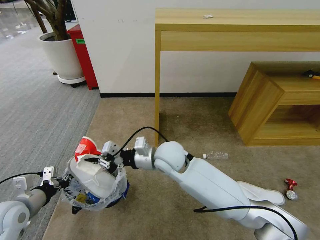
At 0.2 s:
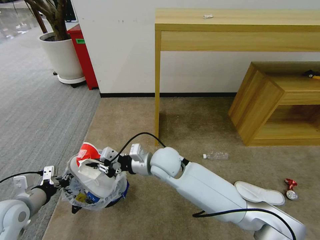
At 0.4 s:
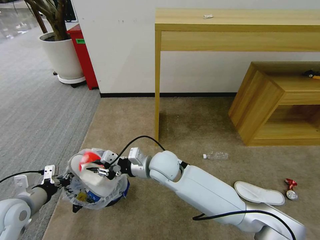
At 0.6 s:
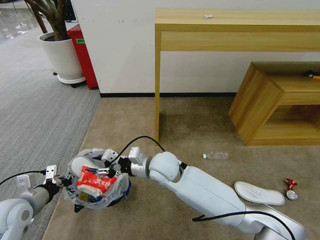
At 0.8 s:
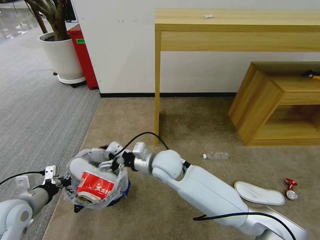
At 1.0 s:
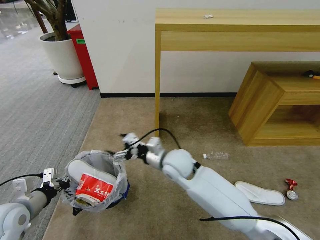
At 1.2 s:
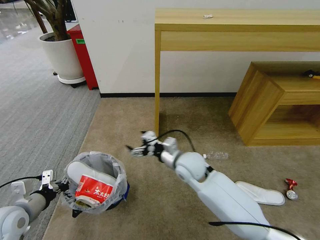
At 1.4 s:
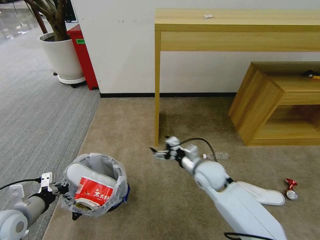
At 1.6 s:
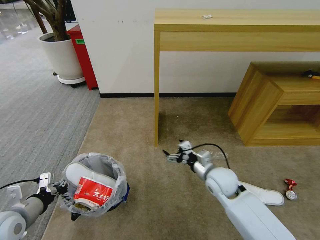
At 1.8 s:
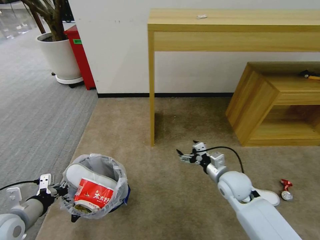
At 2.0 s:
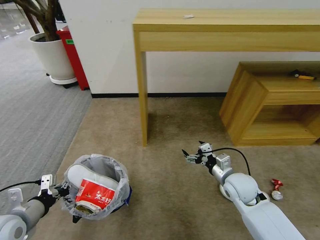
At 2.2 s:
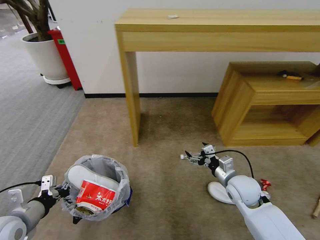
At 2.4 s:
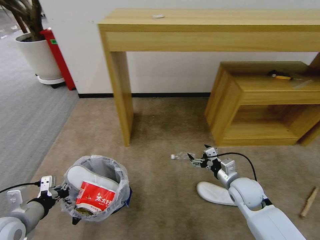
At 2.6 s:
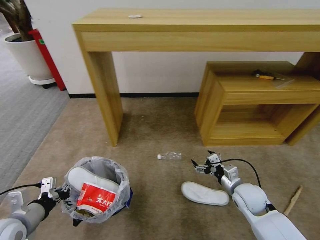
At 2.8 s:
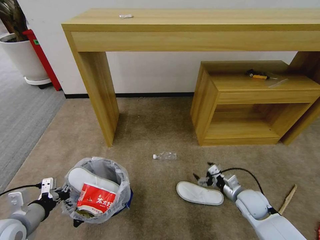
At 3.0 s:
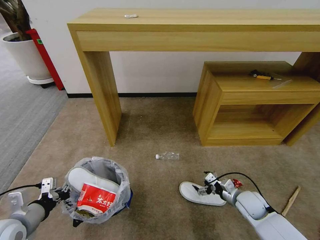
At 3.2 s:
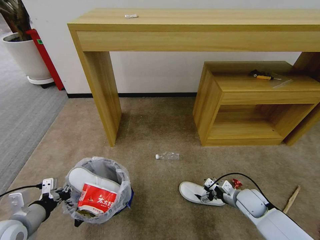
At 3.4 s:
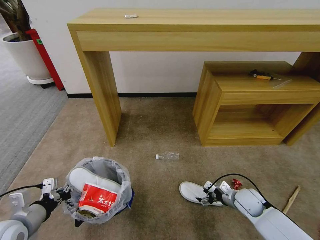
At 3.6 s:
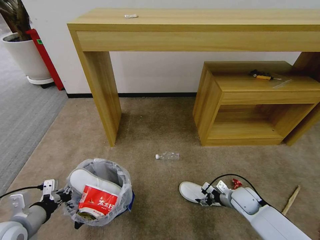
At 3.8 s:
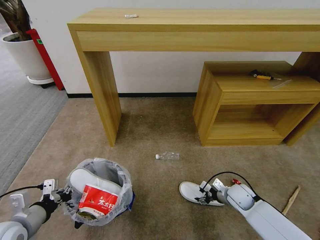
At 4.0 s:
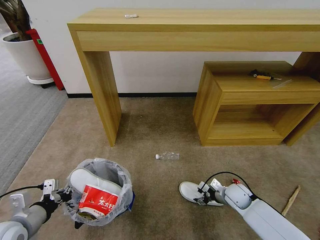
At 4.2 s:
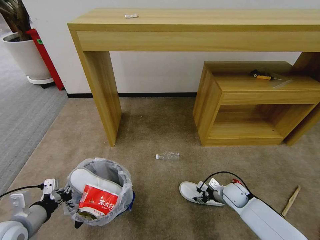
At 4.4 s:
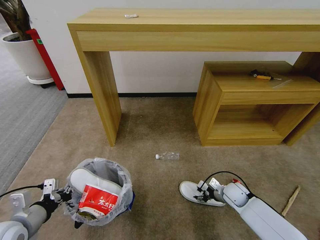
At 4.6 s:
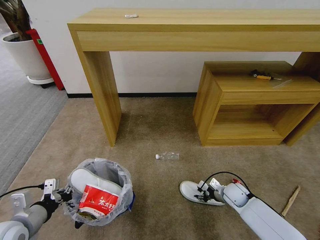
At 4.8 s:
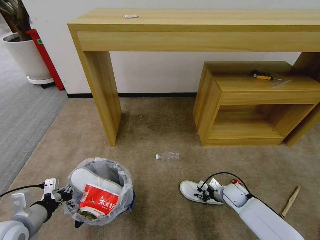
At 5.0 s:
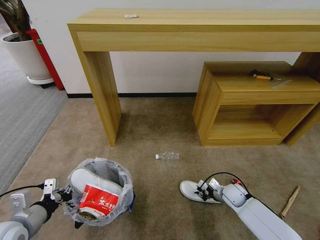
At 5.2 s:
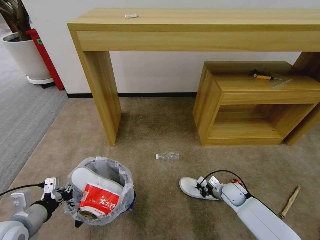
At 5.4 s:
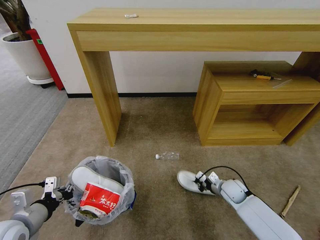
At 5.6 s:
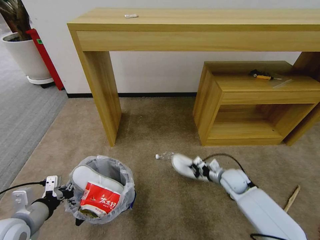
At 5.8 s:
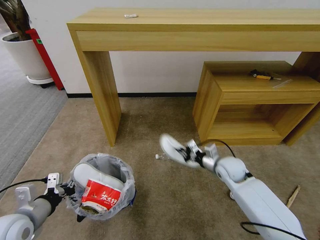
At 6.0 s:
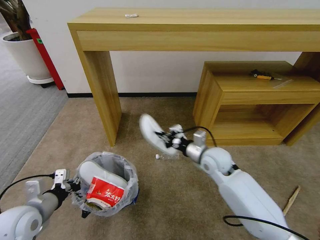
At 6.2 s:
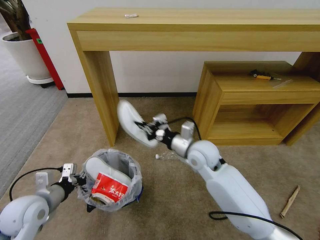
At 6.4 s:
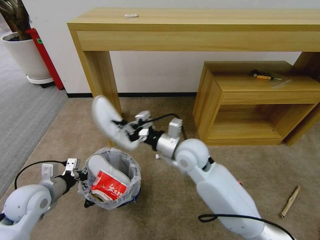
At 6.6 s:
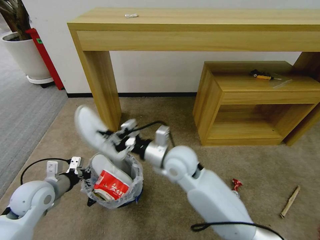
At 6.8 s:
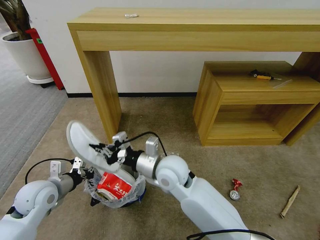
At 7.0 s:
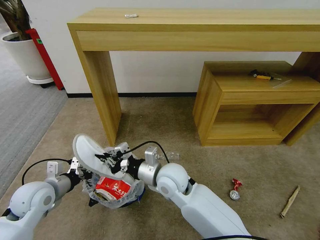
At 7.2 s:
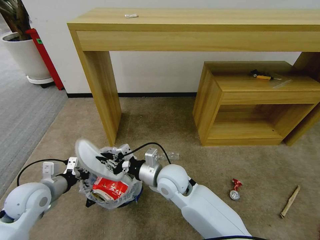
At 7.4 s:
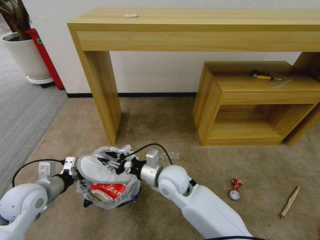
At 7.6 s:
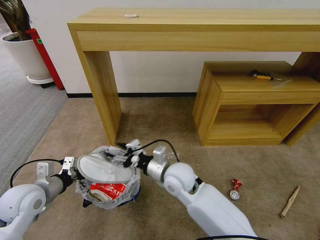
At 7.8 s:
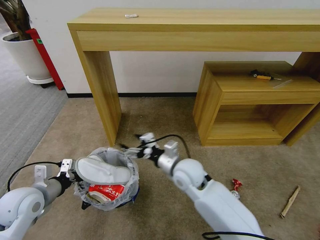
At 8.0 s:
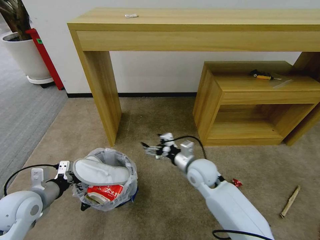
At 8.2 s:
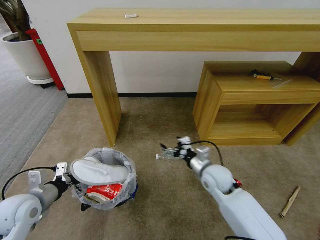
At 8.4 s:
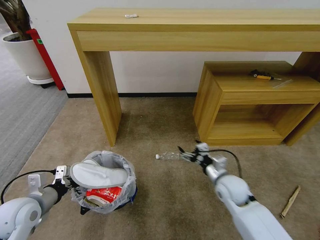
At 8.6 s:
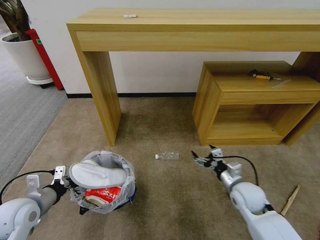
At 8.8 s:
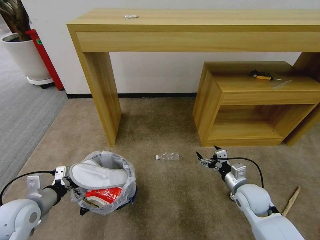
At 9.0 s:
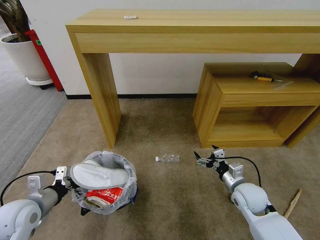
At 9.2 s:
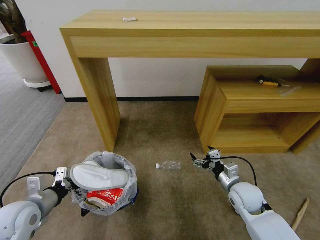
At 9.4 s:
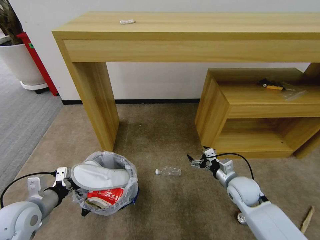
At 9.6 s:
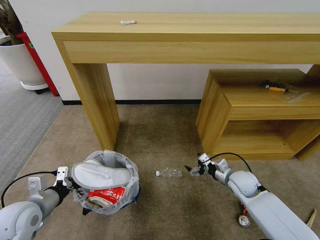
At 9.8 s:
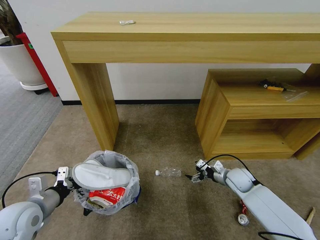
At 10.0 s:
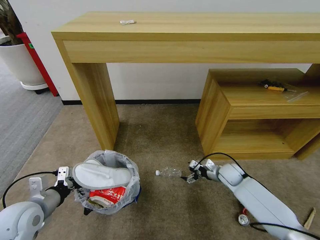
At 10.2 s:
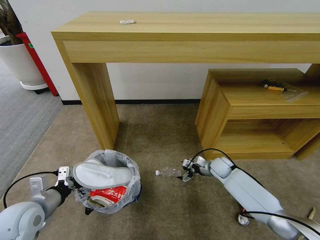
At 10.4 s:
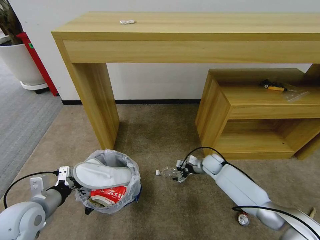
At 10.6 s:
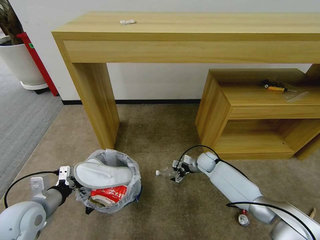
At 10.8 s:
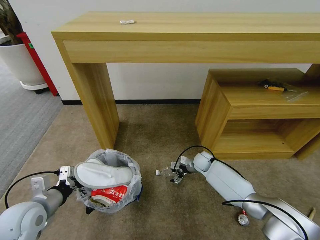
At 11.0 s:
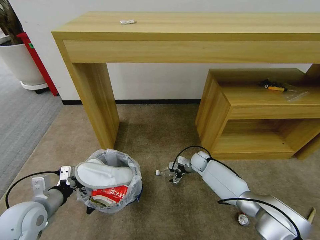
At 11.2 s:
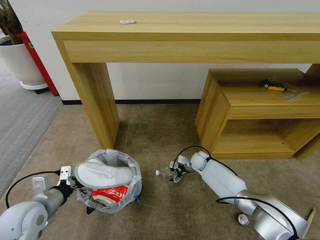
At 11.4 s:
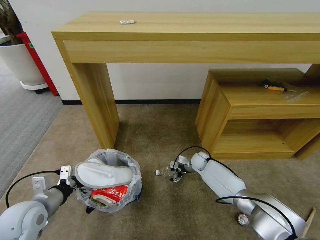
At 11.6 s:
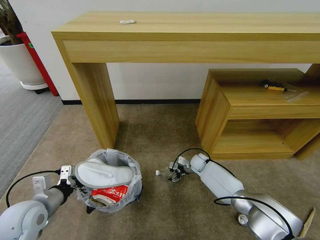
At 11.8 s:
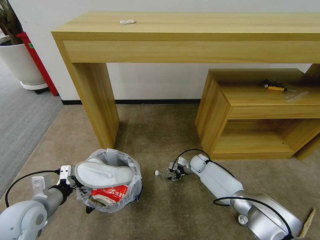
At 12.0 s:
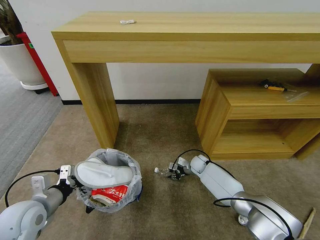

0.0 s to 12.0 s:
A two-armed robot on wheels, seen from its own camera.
Task of the whole recording: Pick up the trash bin and place the garbage on the floor into it.
0.0 to 1.6 s: The right gripper goes about 20 cm to the right and downward, and opens its fingers.
1.6 to 3.0 s: The right gripper shifts about 15 cm to the right and downward.
3.0 to 4.4 s: The right gripper goes about 5 cm forward, and closes its fingers.
4.4 to 6.0 s: The right gripper is displaced upward and to the left by roughly 25 cm, and closes.
6.0 to 7.6 s: The right gripper is displaced to the left and backward by roughly 15 cm, and opens; the left gripper heads forward, covering approximately 5 cm.
7.6 to 9.0 s: The right gripper heads to the right, covering approximately 25 cm, and opens up.
9.0 to 10.4 s: The right gripper travels forward and downward by roughly 20 cm.
10.4 to 12.0 s: The right gripper moves about 5 cm, and closes its fingers.

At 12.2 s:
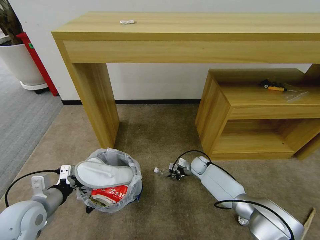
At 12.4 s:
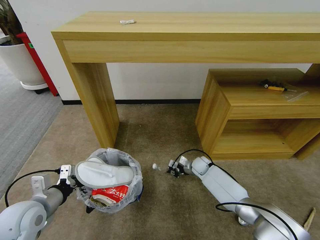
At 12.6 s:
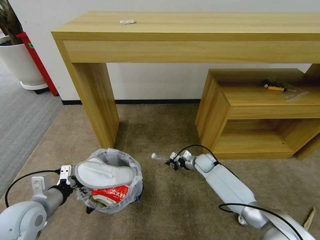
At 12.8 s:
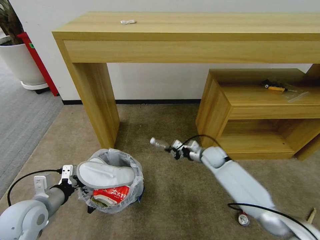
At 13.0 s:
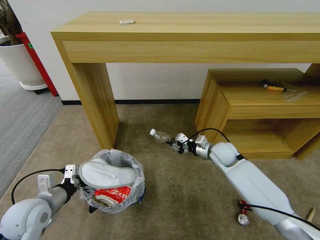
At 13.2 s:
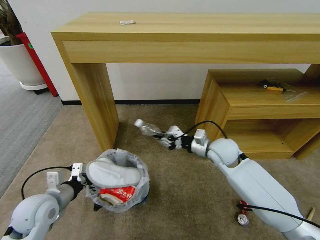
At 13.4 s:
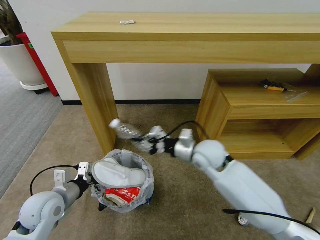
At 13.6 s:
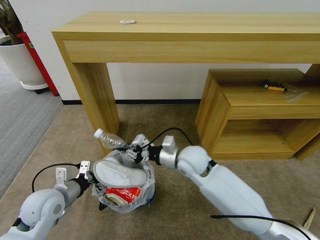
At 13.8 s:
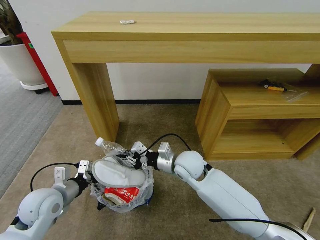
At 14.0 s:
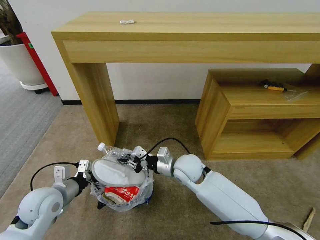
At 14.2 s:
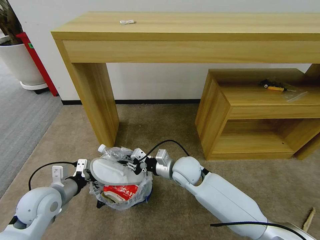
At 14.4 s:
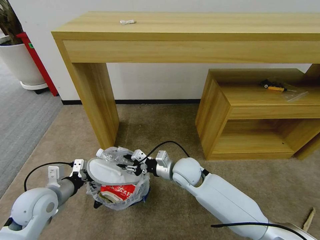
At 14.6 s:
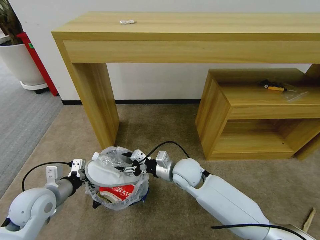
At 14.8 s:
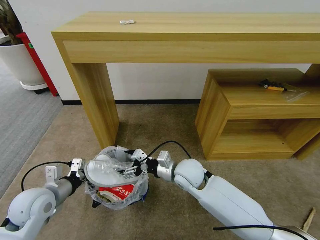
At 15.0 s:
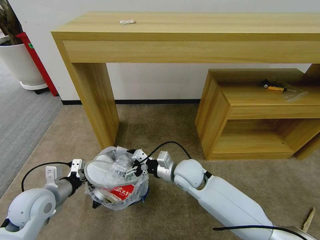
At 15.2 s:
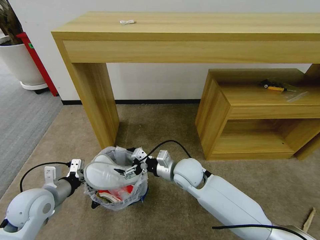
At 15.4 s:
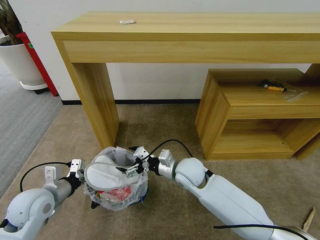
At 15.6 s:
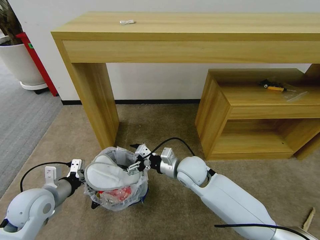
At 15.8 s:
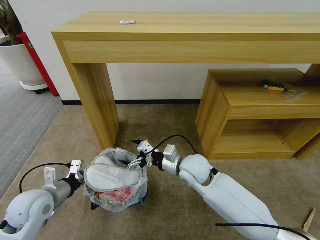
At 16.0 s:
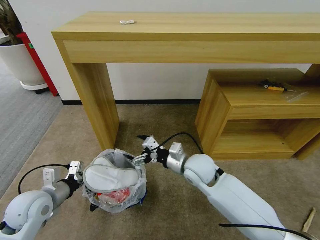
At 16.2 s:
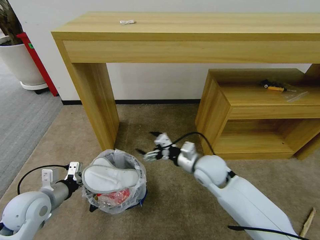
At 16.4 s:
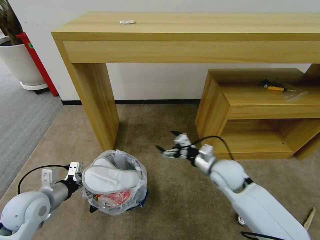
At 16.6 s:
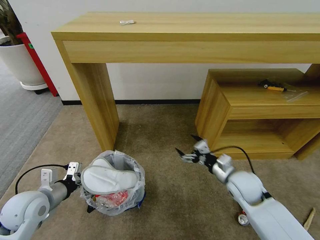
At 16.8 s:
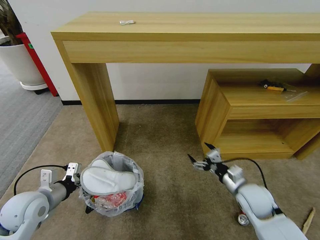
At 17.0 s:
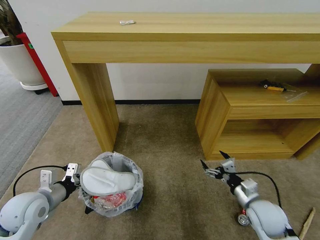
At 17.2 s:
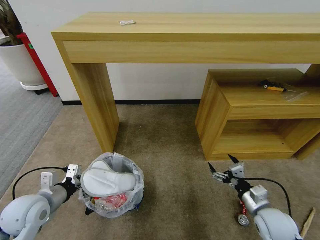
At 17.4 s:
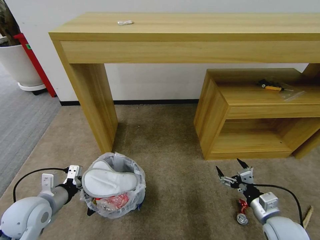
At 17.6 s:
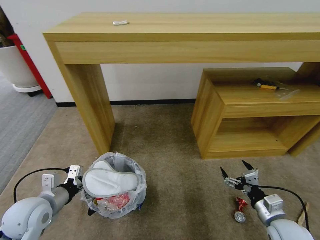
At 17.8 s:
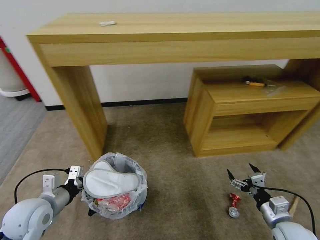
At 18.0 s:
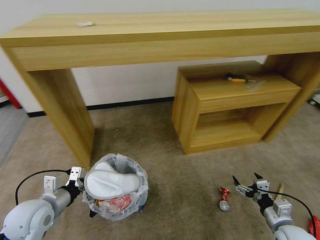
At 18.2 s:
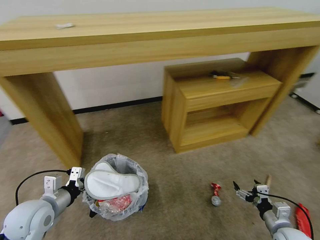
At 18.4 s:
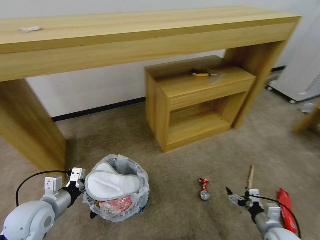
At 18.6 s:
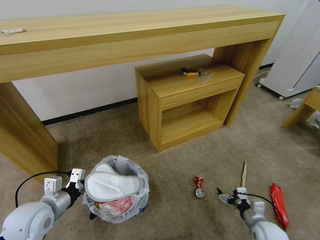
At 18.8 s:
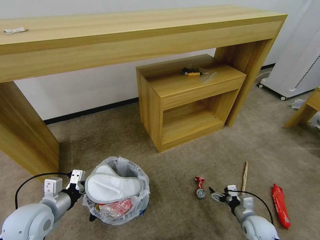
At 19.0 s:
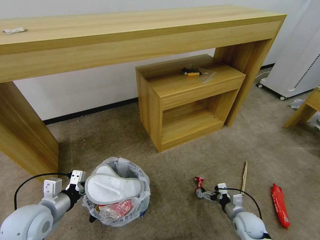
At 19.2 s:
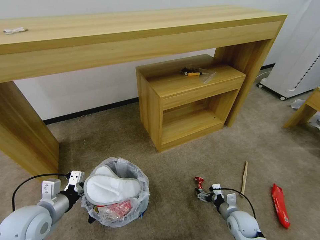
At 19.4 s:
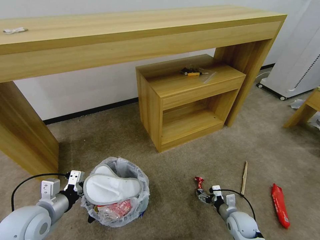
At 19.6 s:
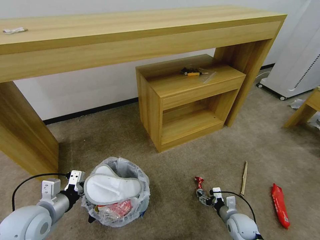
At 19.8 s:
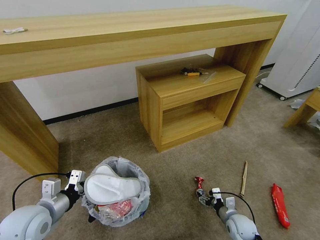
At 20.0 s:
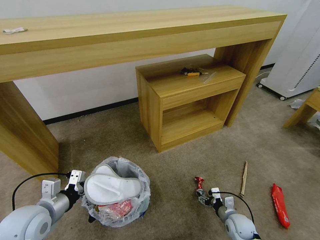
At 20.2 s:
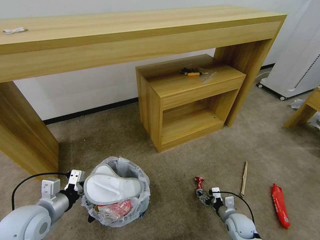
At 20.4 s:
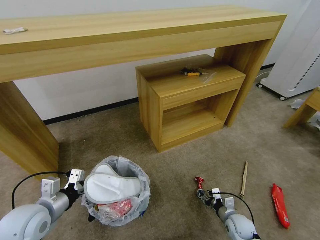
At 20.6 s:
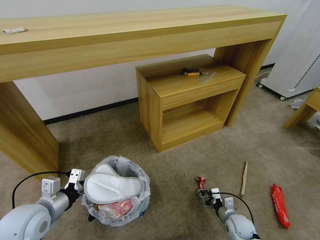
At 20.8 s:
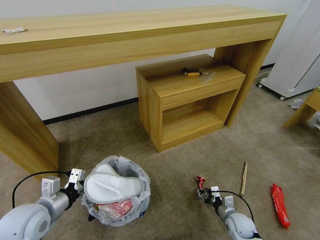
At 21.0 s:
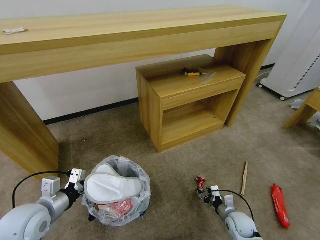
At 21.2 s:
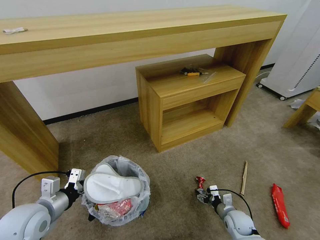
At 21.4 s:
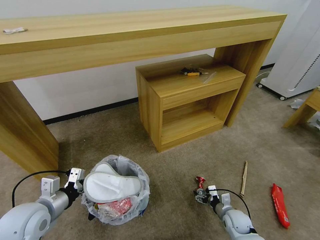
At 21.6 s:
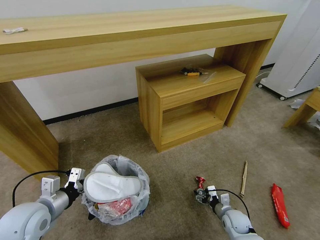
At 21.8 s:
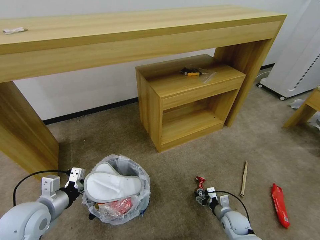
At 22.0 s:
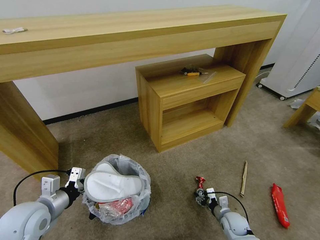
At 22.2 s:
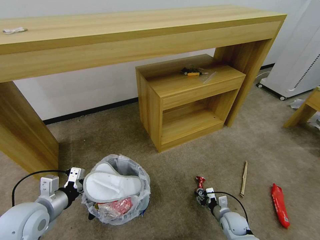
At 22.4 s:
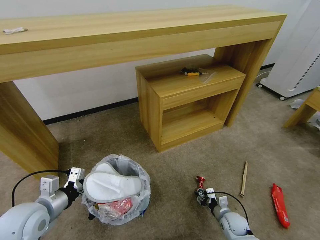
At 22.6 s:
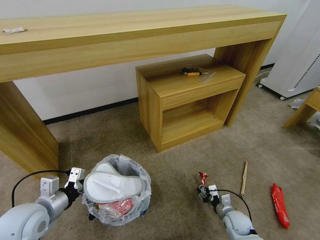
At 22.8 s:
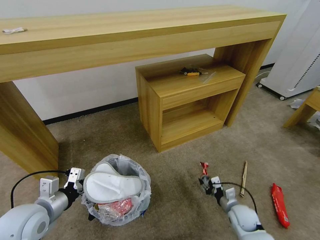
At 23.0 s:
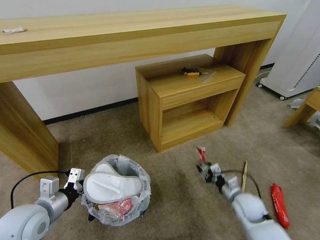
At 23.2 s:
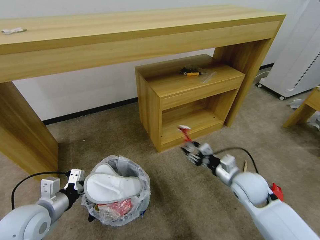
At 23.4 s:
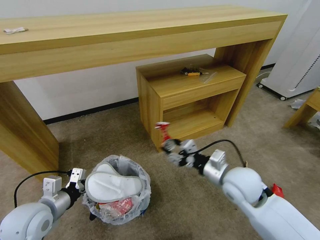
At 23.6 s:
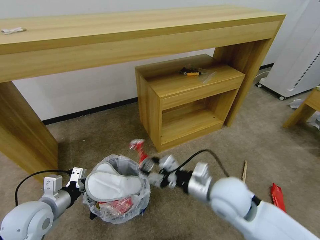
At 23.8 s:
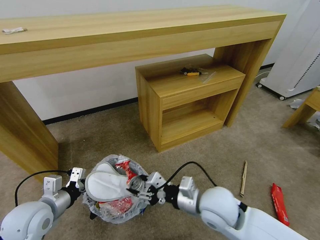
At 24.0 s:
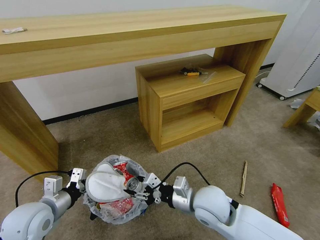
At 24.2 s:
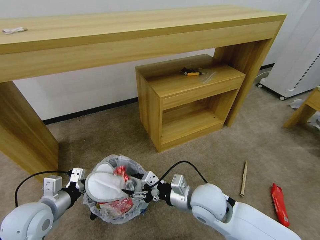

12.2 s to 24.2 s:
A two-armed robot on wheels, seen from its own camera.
Task of the whole recording: Pick up the trash bin and place the garbage on the floor into it.
12.2 to 13.8 s: The right gripper is displaced upward, backward and to the left by some 30 cm.
13.8 to 15.2 s: The right gripper opens up.
15.2 to 16.6 s: The right gripper moves to the right, about 15 cm.
16.6 to 18.2 s: The right gripper shifts about 25 cm to the right, backward and downward.
18.2 to 19.8 s: The right gripper shifts about 15 cm to the left, downward and forward.
19.8 to 21.2 s: The right gripper closes, then reopens.
21.2 to 22.6 s: The right gripper closes.
22.6 to 24.2 s: The right gripper heads upward and to the left, covering some 30 cm.
